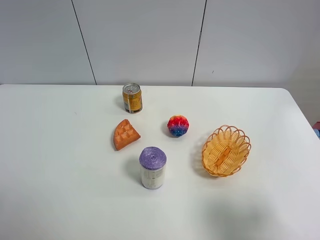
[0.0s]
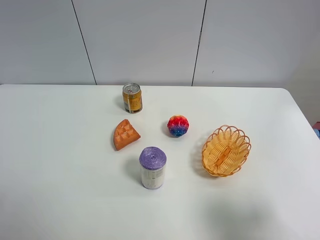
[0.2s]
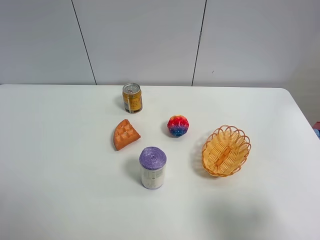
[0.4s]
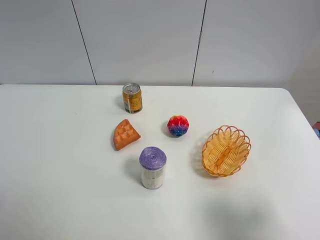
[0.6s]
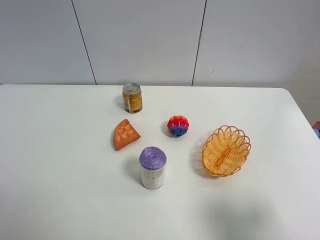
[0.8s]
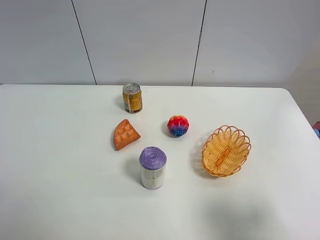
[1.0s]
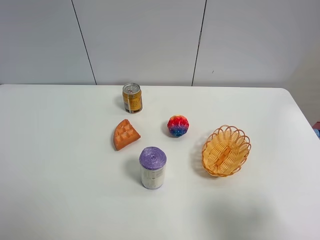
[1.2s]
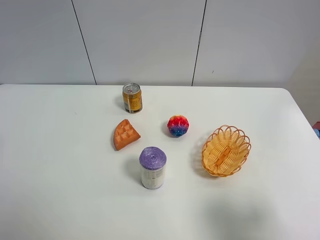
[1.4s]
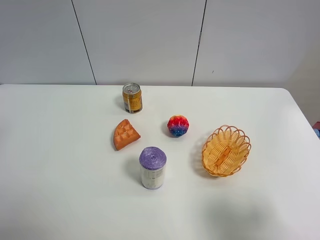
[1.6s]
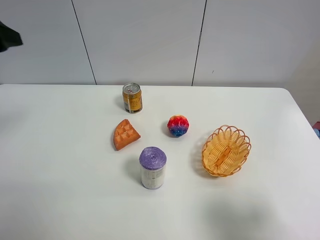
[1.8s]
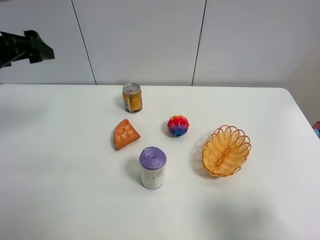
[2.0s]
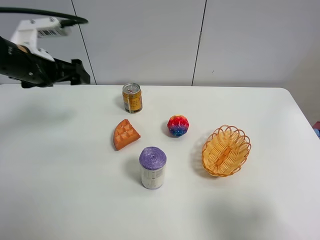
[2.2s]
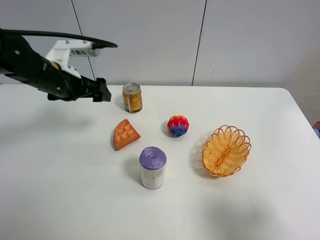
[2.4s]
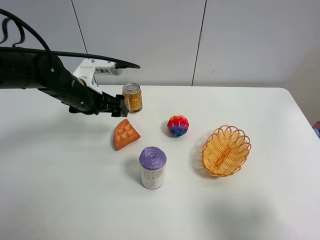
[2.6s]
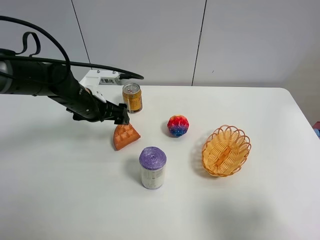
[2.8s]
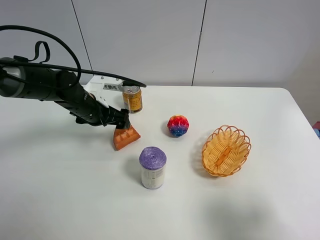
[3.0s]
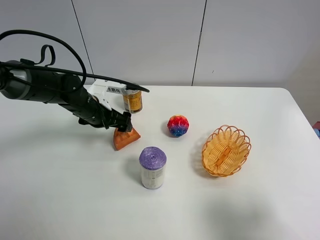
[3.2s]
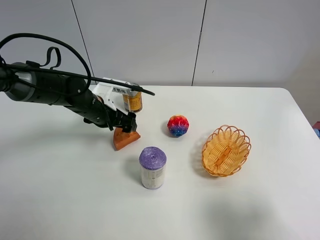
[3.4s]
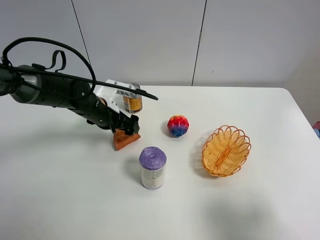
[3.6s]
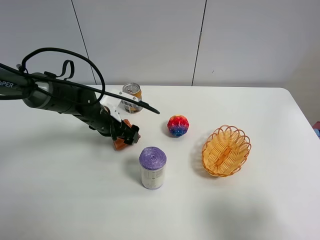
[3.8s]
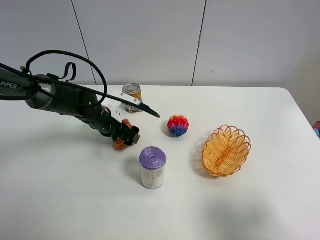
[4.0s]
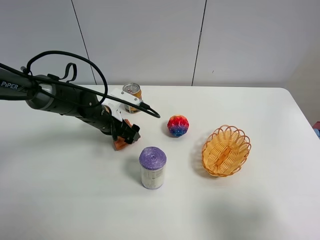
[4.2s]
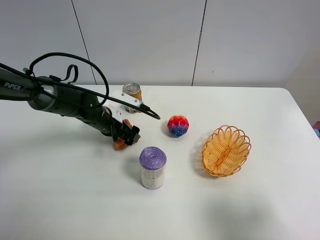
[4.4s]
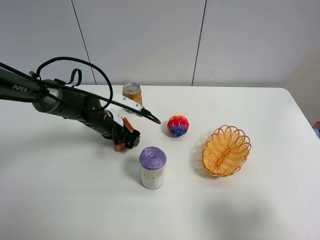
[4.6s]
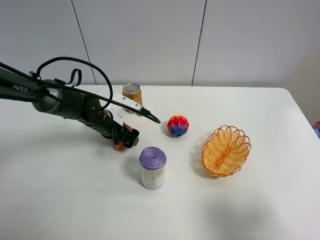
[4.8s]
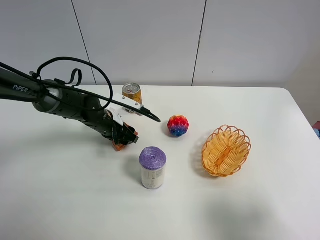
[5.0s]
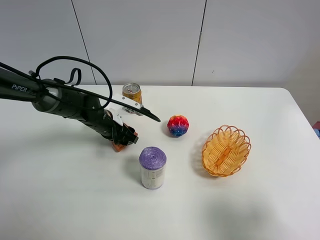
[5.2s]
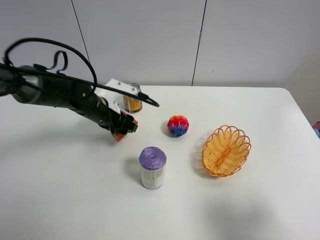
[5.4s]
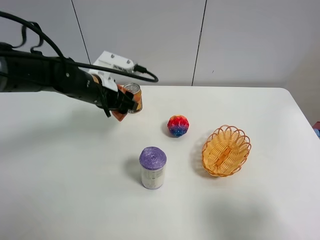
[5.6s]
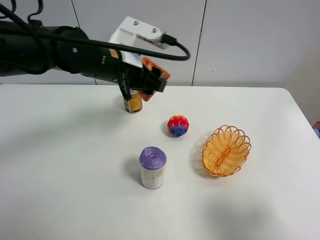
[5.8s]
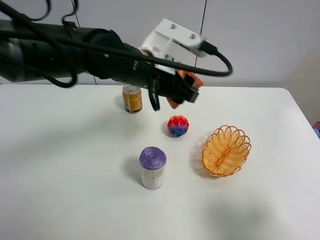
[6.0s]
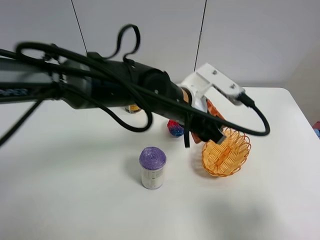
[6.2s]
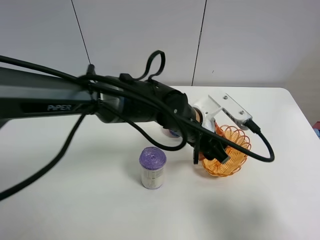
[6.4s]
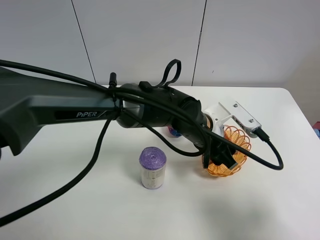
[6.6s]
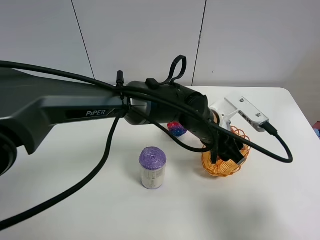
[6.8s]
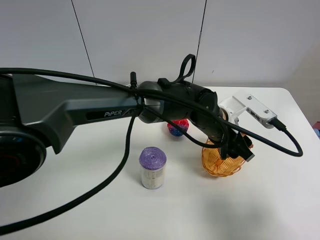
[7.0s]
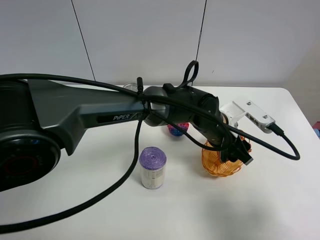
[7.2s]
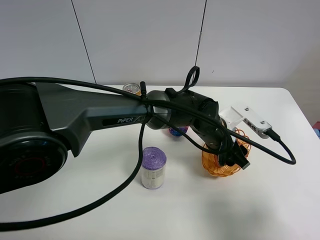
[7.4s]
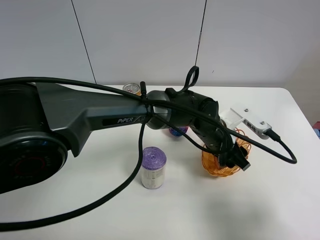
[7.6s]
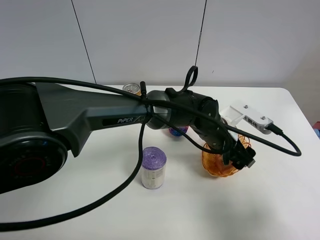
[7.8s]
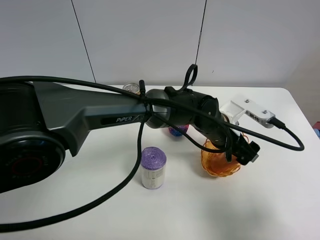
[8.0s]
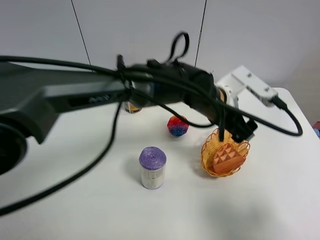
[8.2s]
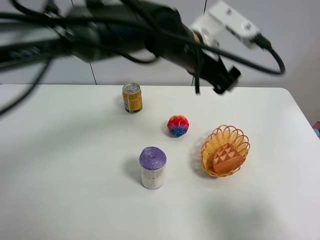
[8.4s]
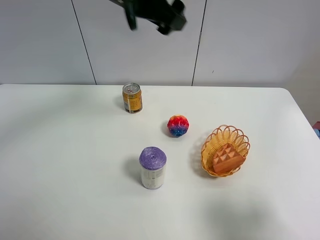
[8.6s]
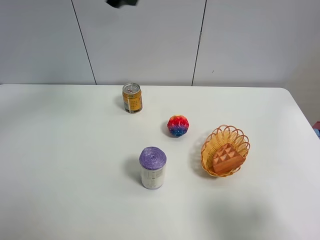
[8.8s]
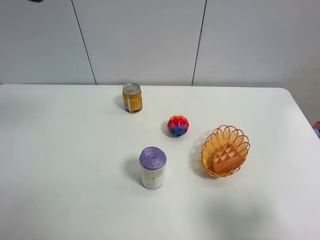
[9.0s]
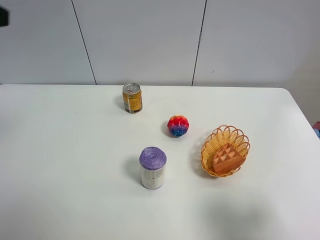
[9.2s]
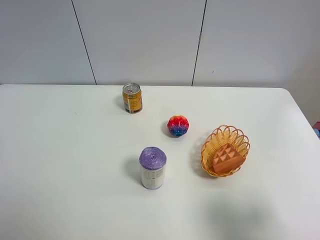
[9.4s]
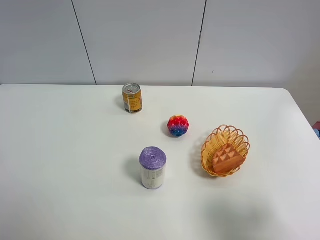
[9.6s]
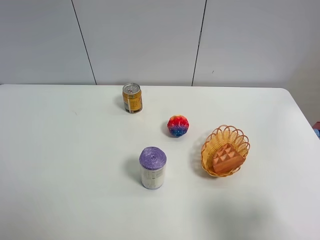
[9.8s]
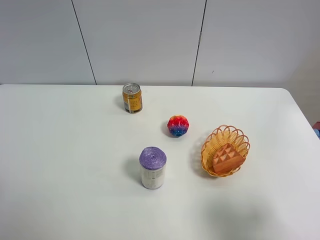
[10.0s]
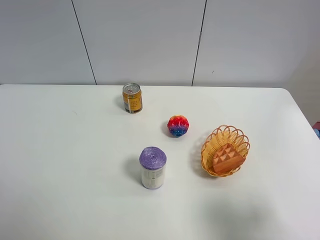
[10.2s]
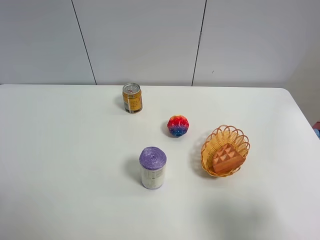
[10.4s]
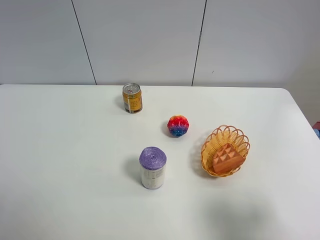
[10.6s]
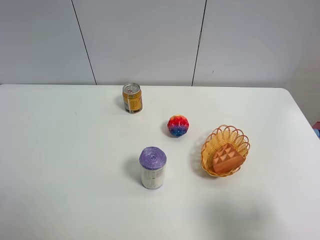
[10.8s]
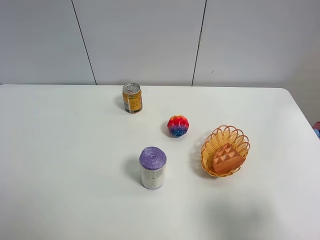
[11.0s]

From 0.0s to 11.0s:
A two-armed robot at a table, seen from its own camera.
Task of the whole recording: Put the bakery in the basket.
From 1.6s to 3.2s: The left gripper heads downward, forward and to the right, covering roughly 35 cm.
From 3.2s to 4.8s: The left gripper goes approximately 5 cm downward.
From 4.8s to 6.2s: The left gripper goes about 25 cm to the right, upward and backward, and closes its fingers.
From 6.2s to 7.8s: The left gripper travels to the right and downward by about 10 cm, and opens its fingers.
From 7.8s to 9.4s: The left gripper moves to the left, upward and backward, some 50 cm.
